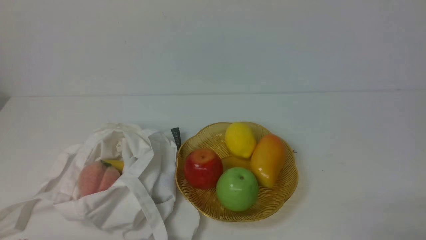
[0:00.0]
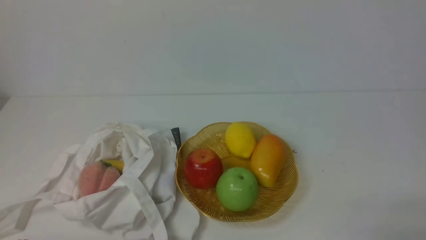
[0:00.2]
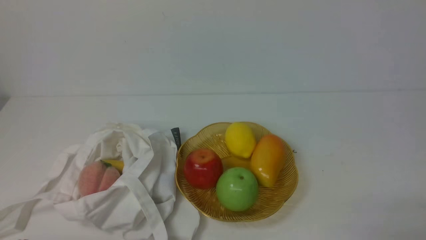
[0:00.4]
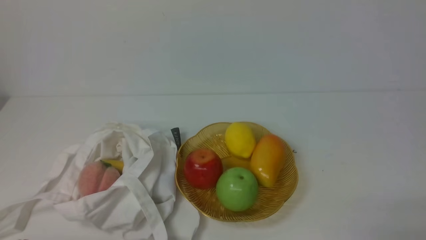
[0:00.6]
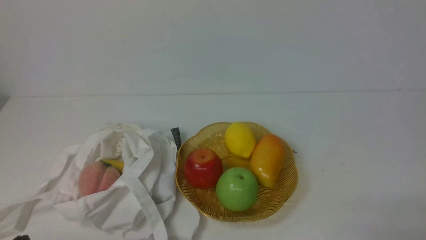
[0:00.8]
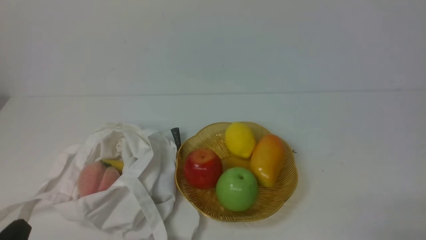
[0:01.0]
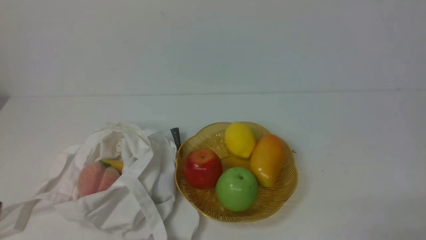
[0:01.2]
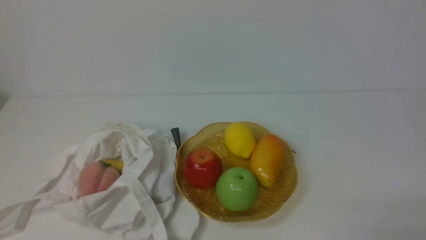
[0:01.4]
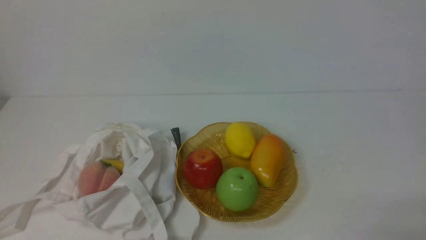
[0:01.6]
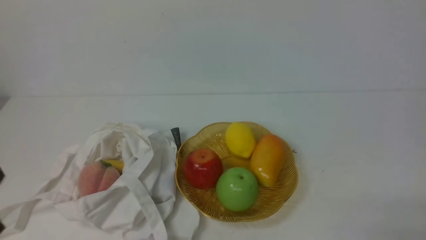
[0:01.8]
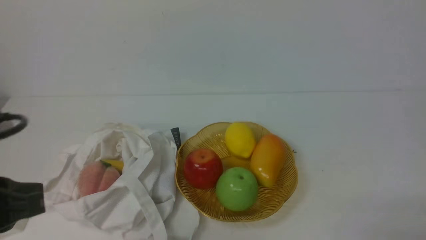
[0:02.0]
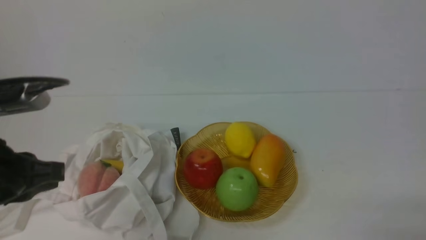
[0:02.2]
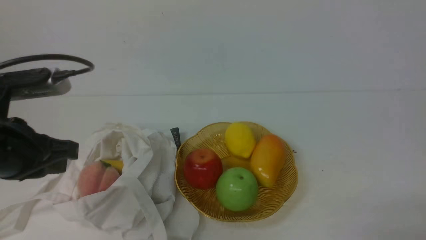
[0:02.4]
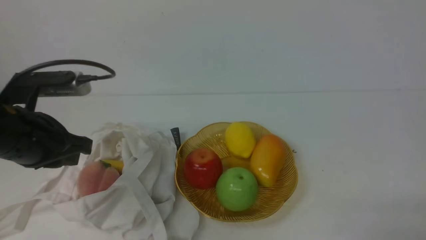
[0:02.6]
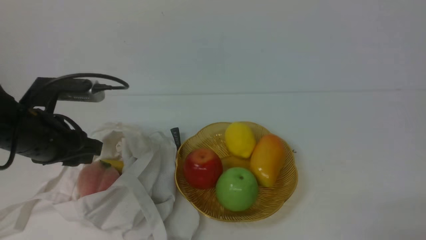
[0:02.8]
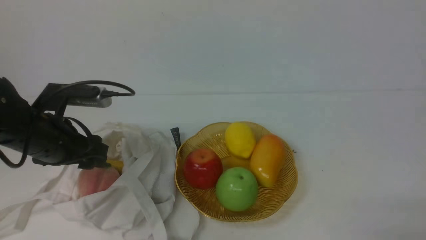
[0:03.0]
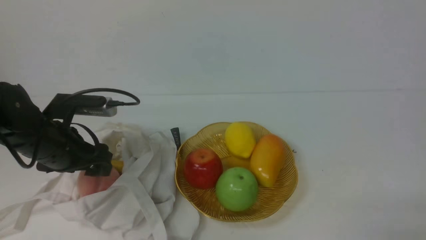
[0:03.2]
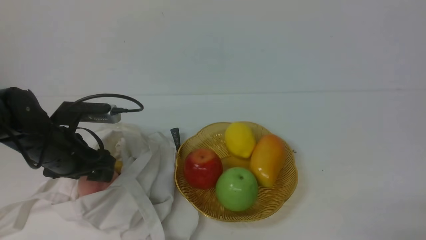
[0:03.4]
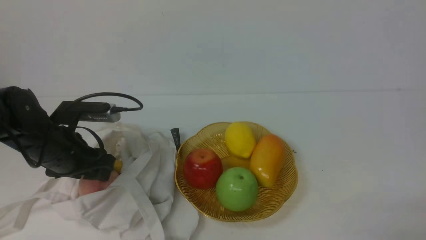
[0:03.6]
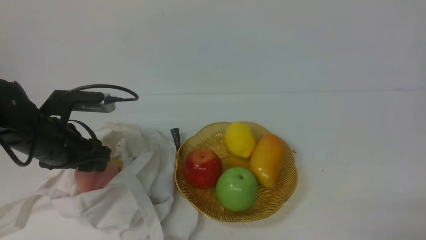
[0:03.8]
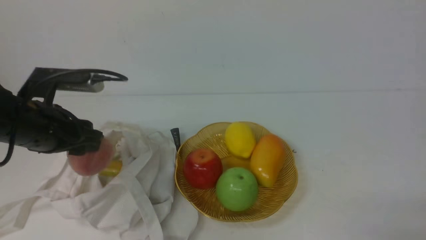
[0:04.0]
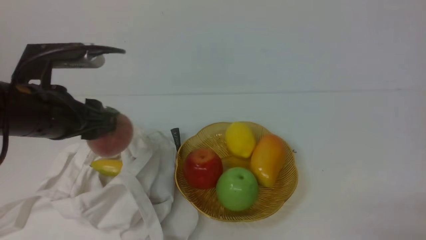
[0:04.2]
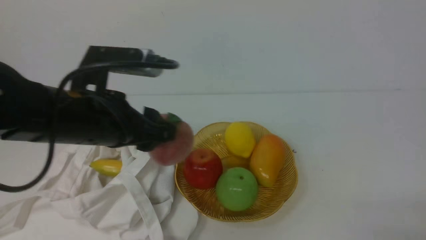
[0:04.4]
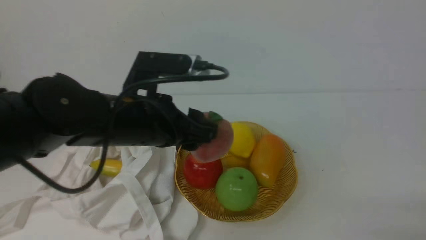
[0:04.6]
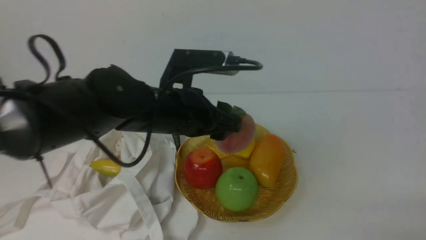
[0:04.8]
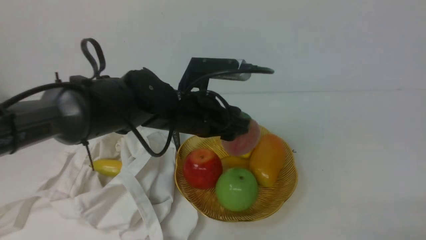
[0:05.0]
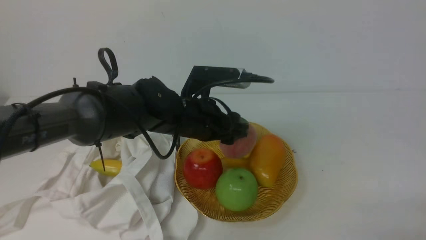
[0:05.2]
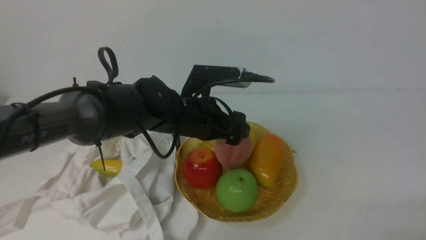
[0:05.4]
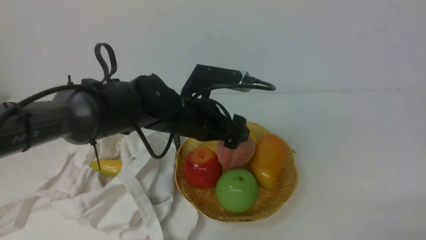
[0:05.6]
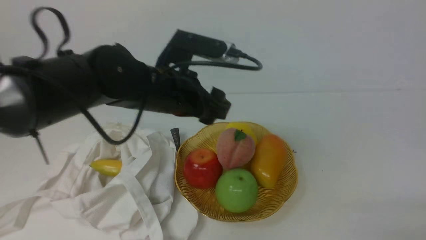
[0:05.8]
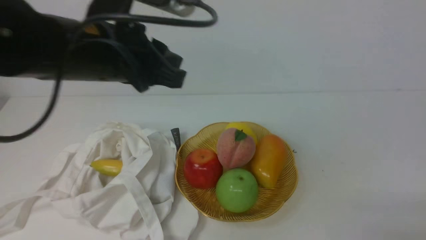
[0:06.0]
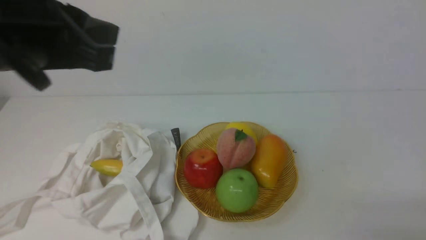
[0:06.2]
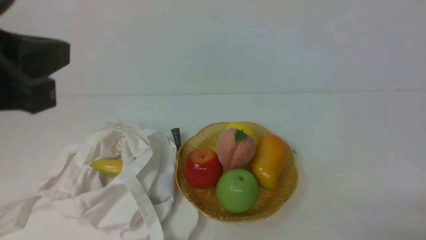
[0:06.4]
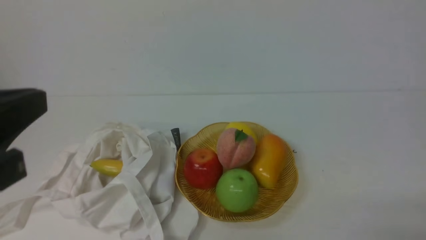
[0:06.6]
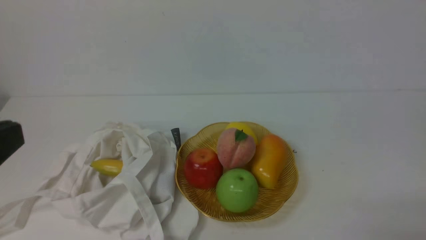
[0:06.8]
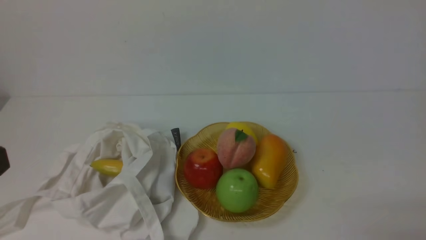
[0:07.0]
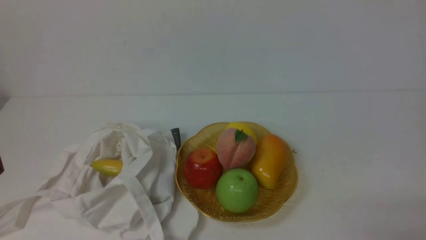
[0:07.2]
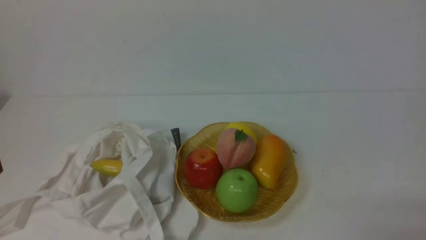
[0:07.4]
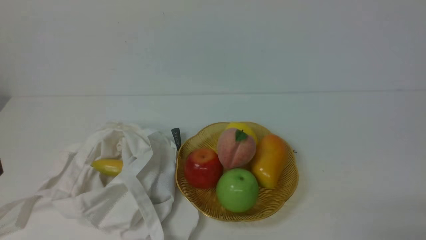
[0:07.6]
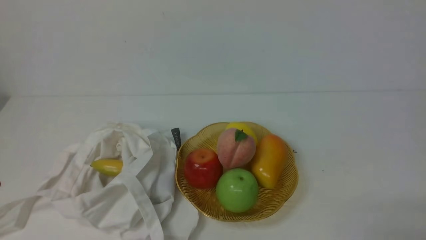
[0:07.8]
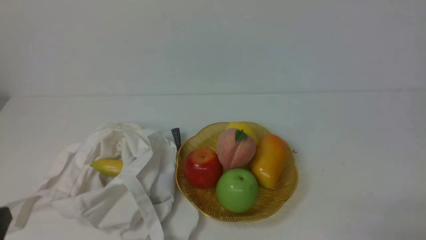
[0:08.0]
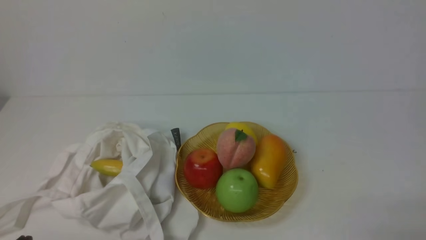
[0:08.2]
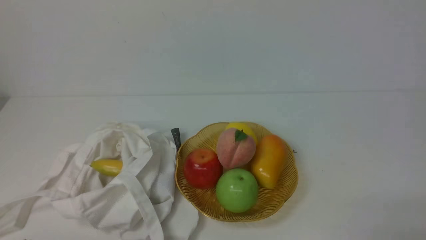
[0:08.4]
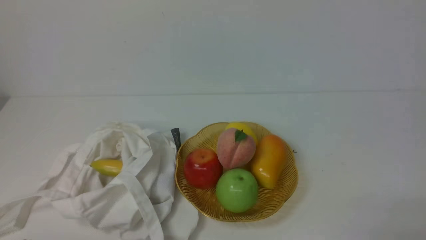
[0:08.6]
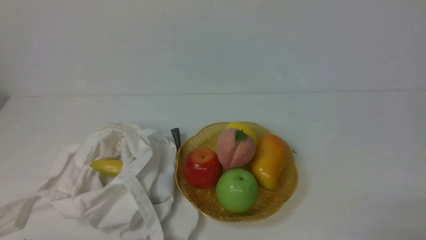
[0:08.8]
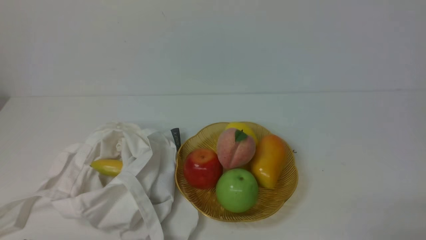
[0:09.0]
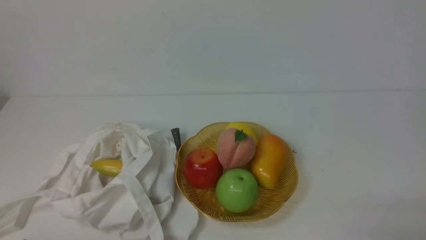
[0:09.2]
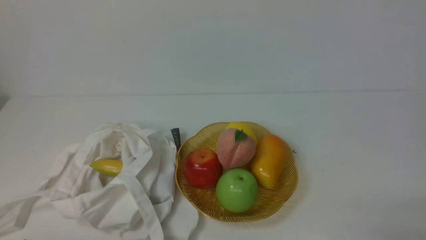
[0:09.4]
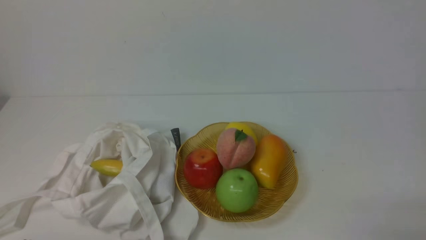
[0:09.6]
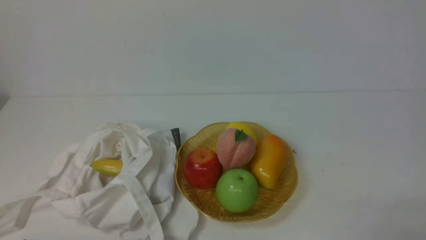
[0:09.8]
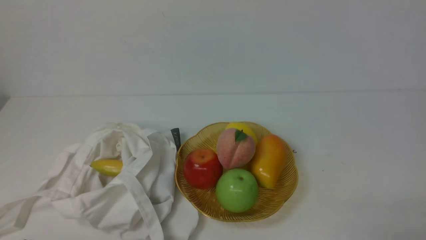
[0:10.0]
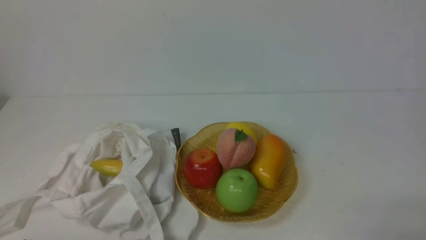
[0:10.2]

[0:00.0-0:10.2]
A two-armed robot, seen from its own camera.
Step, 0:00.0 to 0:03.8: use the left arm to grab a peach from the bag.
Step, 0:04.0 to 0:05.4: use the left arm to put the peach into the empty plate on the right.
0:01.4 to 0:03.0: The left gripper moves forward, approximately 25 cm, and opens.
0:03.0 to 0:04.4: The left gripper moves to the right and upward, approximately 10 cm.
0:04.4 to 0:05.8: The left gripper travels to the right by approximately 5 cm.
0:05.8 to 0:07.2: The left gripper goes approximately 30 cm backward and to the left, and closes up.
0:08.8 to 0:10.2: Neither gripper changes place.
